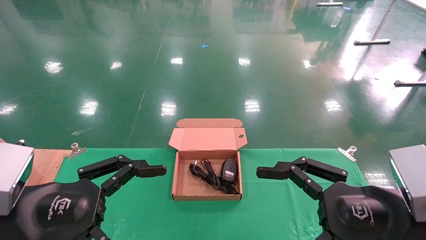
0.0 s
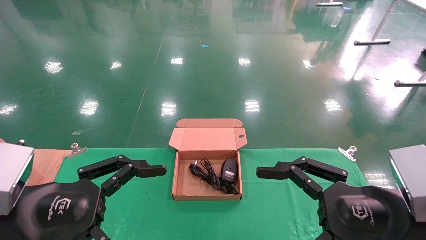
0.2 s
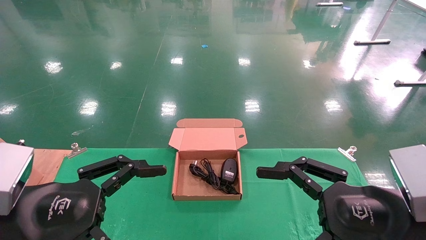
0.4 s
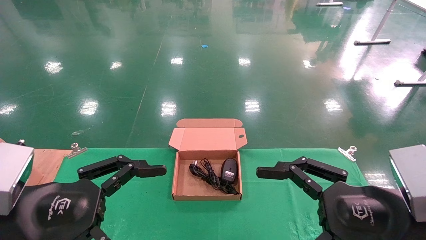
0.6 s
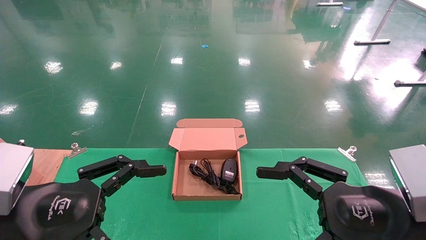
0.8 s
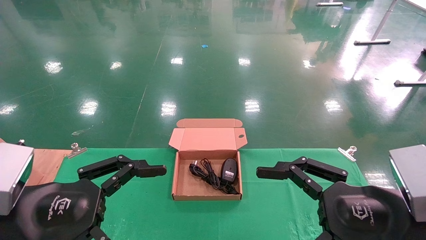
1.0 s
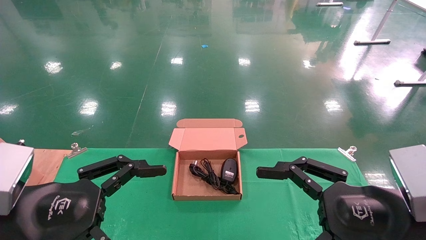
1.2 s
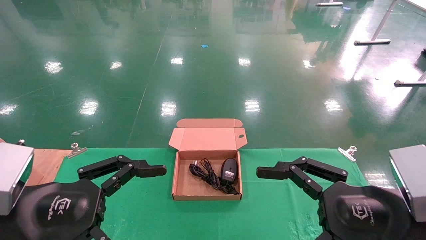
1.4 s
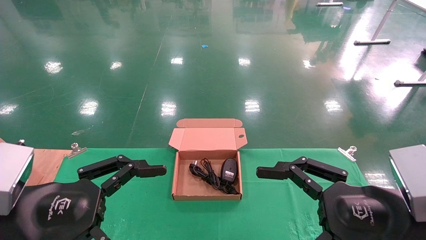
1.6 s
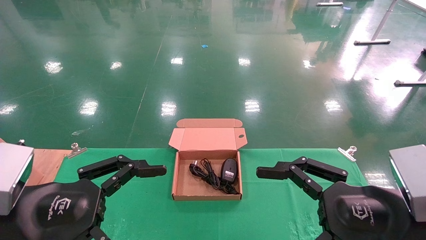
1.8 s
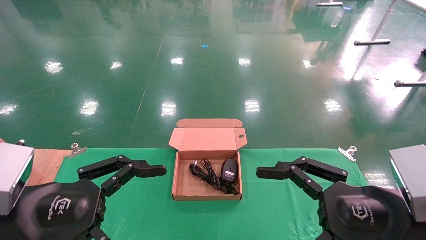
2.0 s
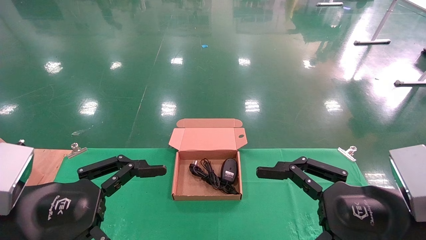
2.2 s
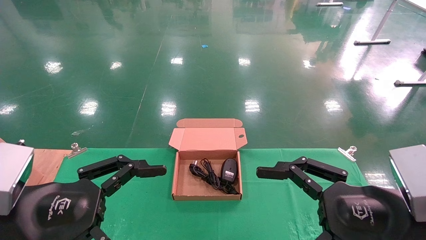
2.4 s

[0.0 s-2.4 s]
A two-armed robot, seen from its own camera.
0.0 to 2.4 s: Both grippers stay put.
